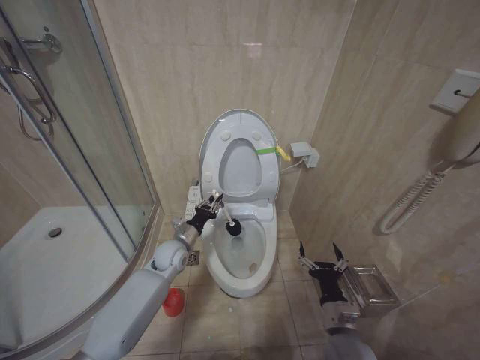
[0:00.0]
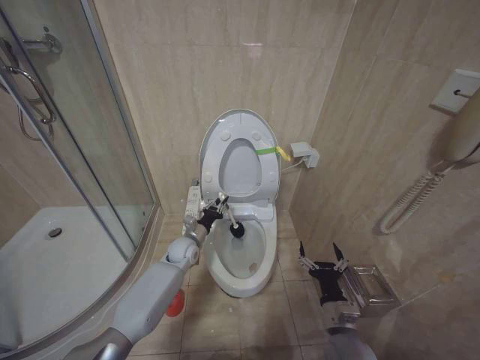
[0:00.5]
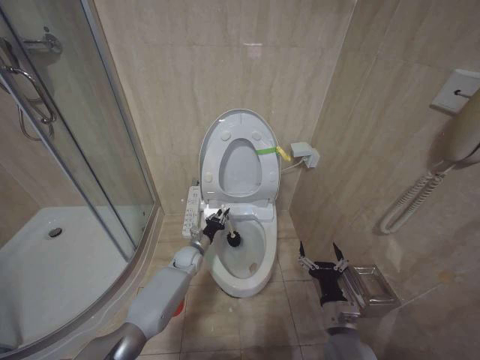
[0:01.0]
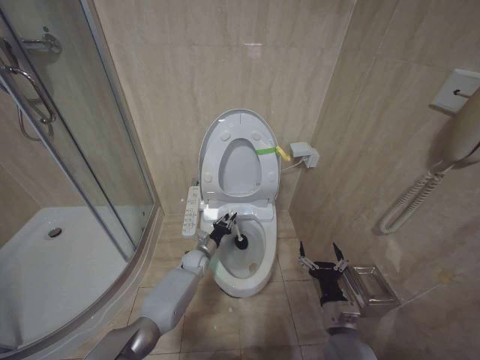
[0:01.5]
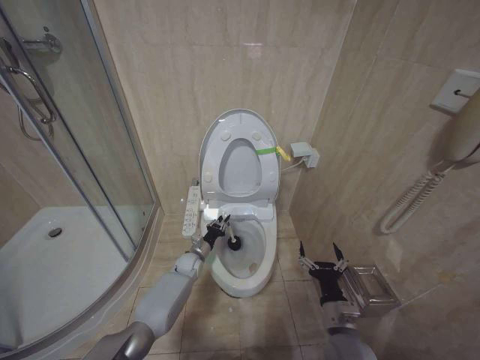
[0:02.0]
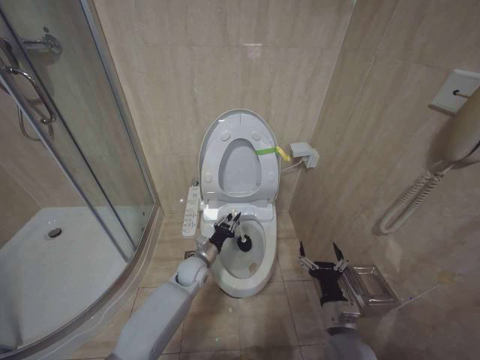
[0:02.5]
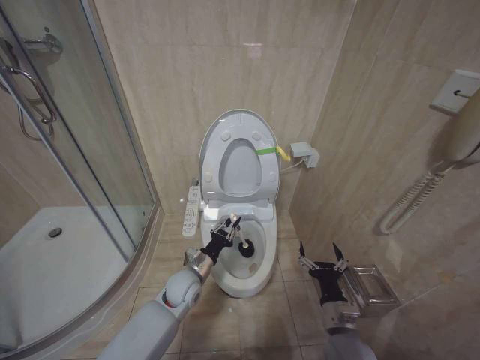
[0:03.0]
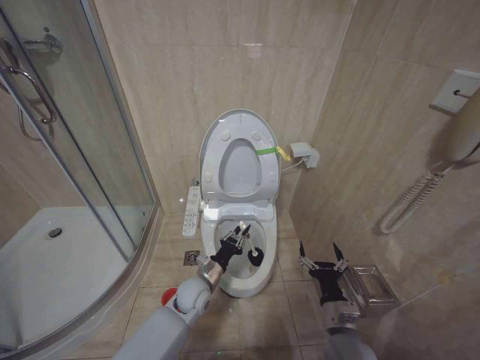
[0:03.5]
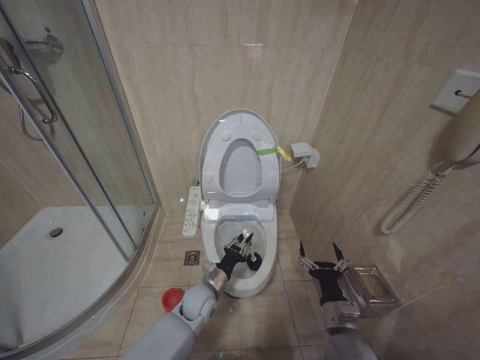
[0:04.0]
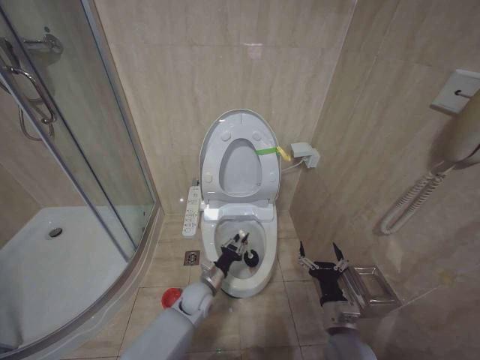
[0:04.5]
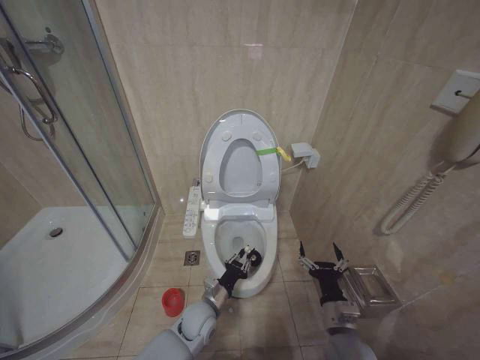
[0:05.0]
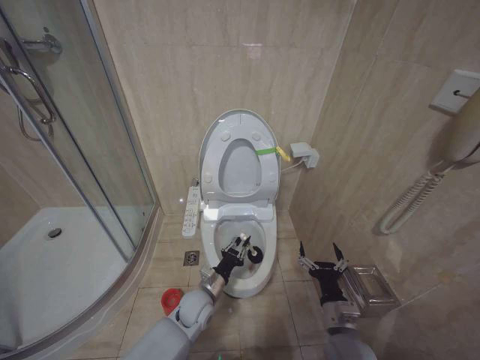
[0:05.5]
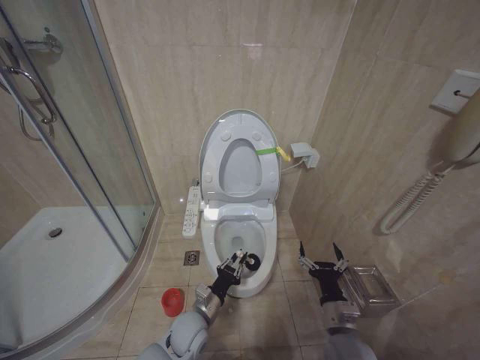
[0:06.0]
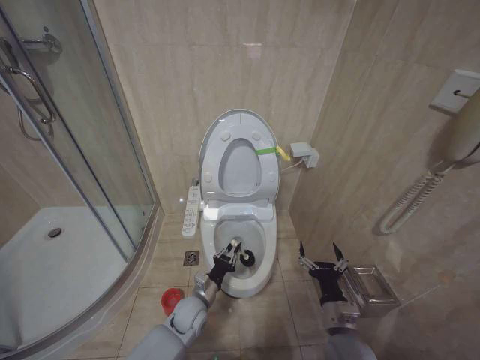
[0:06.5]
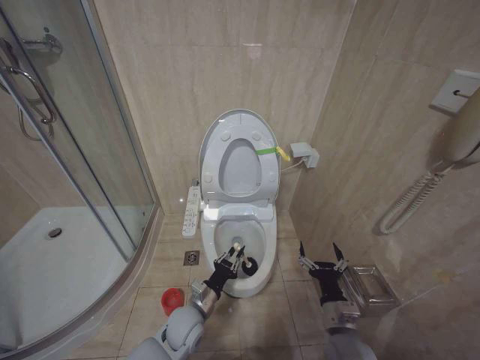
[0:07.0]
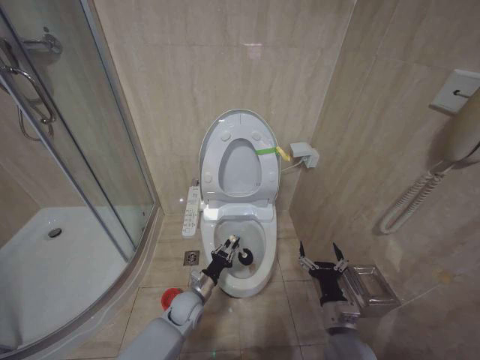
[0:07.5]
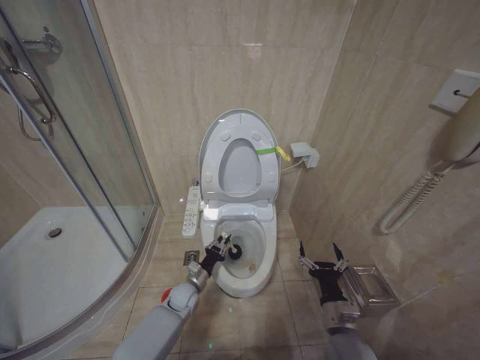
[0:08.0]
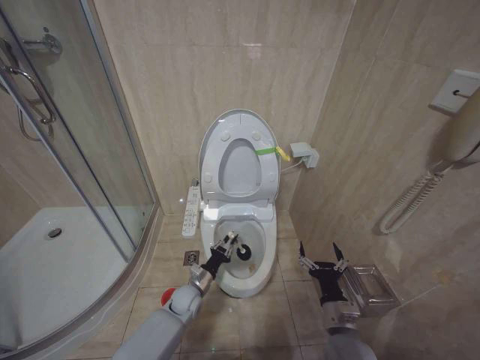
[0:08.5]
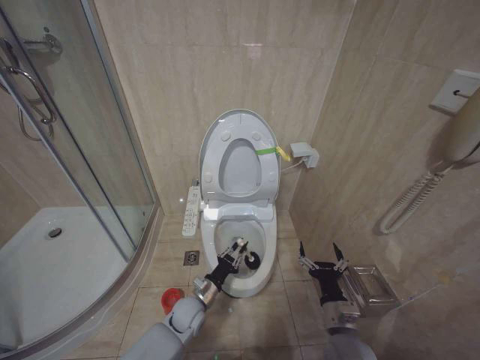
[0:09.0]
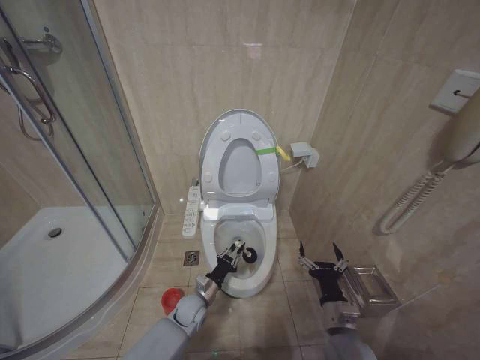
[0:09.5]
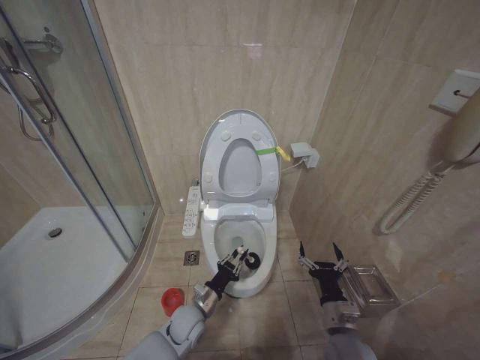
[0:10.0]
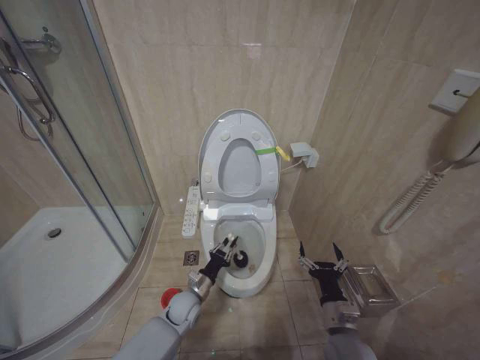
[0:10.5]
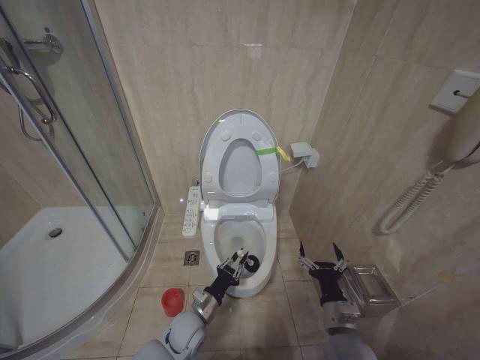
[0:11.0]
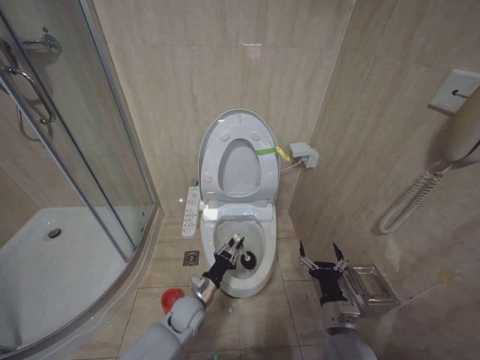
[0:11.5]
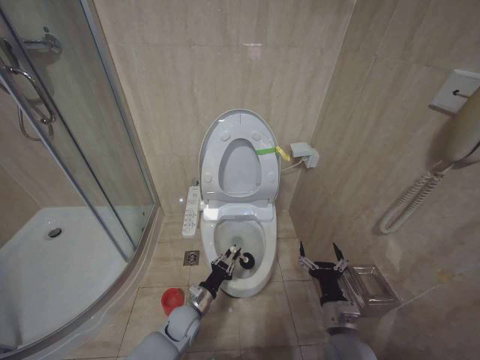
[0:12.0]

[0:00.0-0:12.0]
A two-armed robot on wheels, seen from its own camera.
Task of the whole recording: Open the toilet lid, clean the toilet bowl with a toilet brush, close the toilet lid, and flush.
0:00.0 to 0:02.0: The left gripper shifts some 15 cm downward and forward.
0:02.0 to 0:04.0: The left gripper is displaced backward by about 15 cm.
0:04.0 to 0:06.0: The left gripper goes roughly 5 cm backward.
0:06.0 to 0:08.0: The left gripper moves forward and downward, about 10 cm.
0:08.0 to 0:10.0: The left gripper moves backward, approximately 5 cm.
0:10.0 to 0:12.0: The left gripper moves forward and backward over approximately 5 cm, changing direction 2 times.

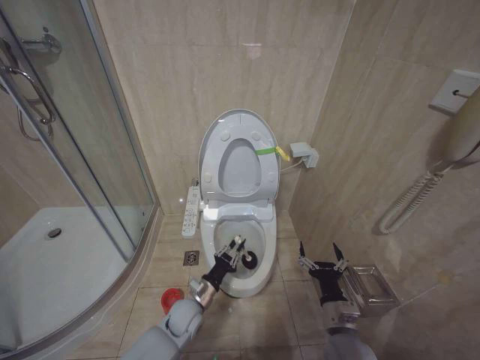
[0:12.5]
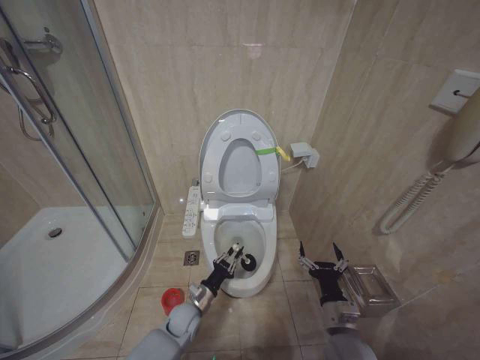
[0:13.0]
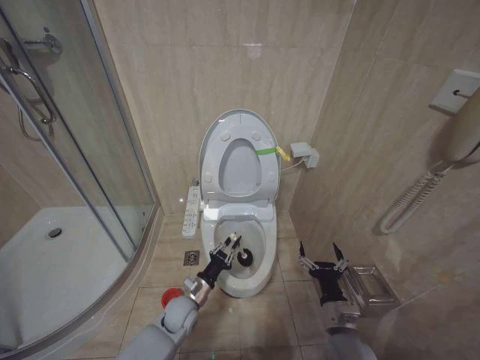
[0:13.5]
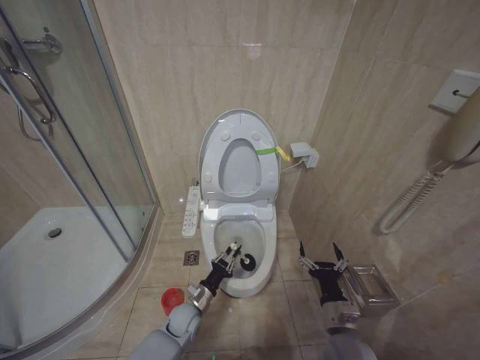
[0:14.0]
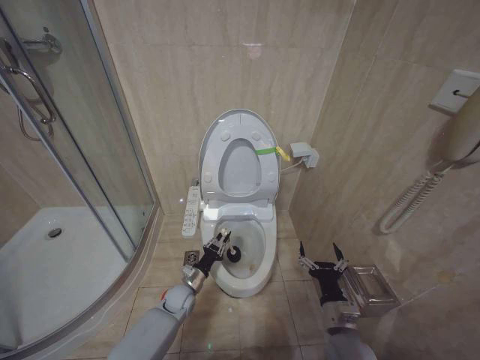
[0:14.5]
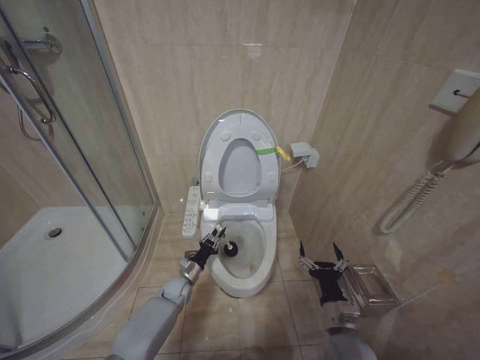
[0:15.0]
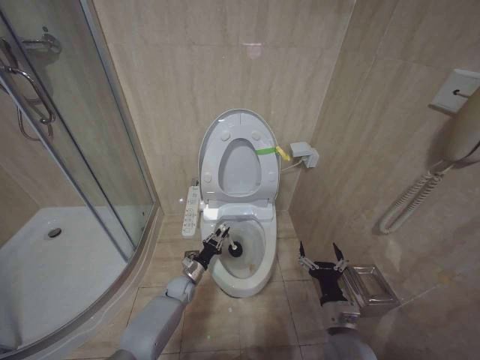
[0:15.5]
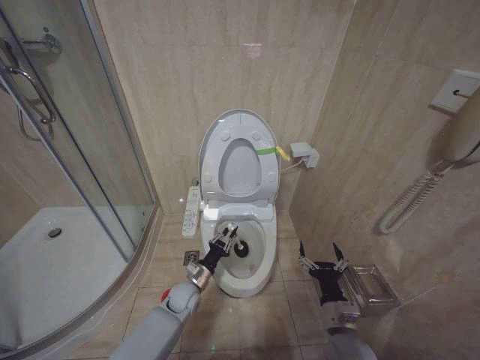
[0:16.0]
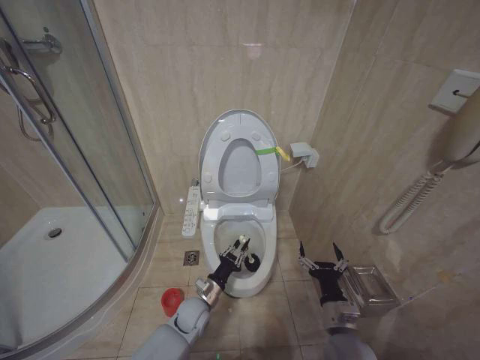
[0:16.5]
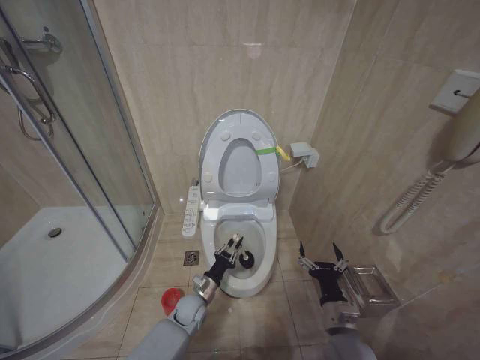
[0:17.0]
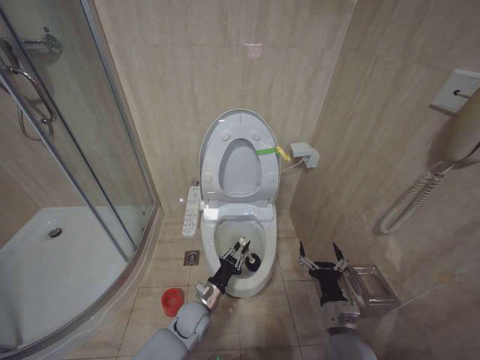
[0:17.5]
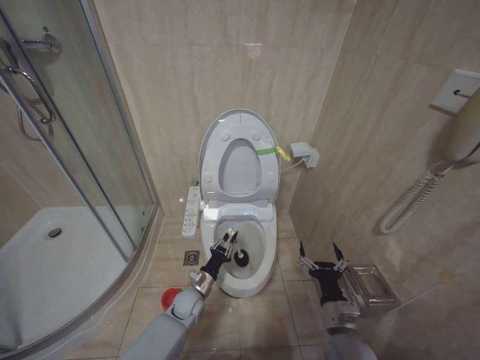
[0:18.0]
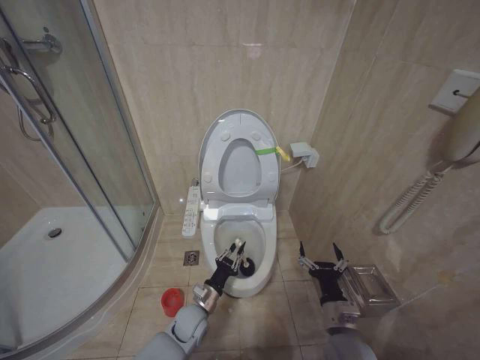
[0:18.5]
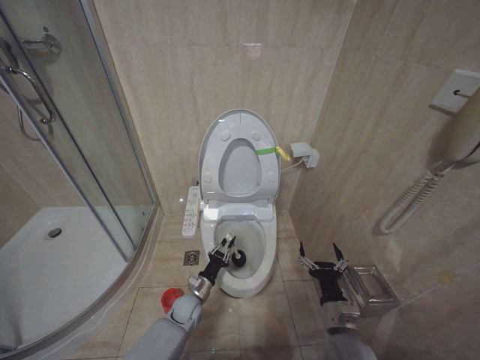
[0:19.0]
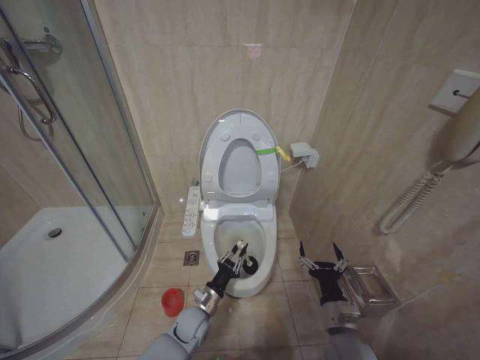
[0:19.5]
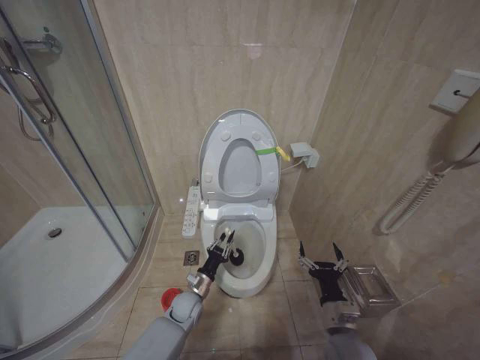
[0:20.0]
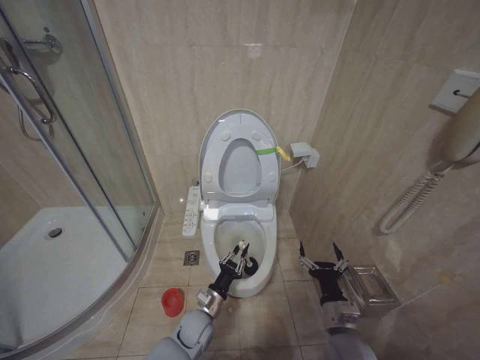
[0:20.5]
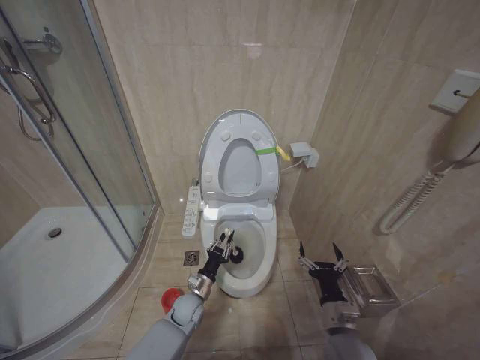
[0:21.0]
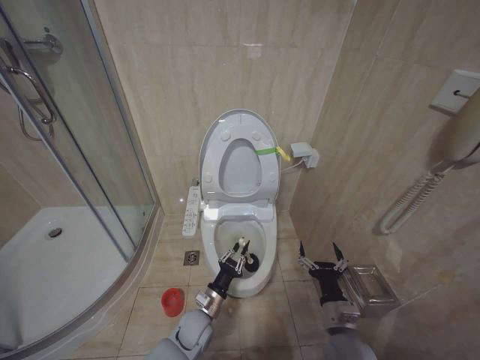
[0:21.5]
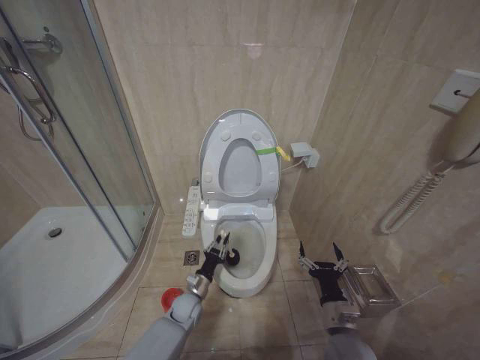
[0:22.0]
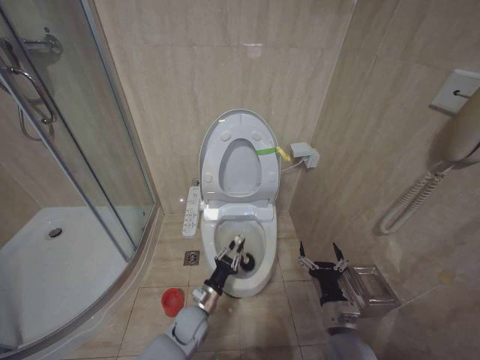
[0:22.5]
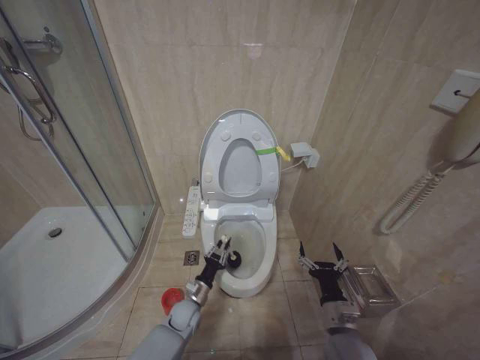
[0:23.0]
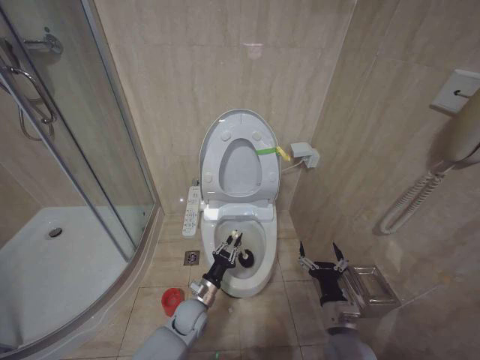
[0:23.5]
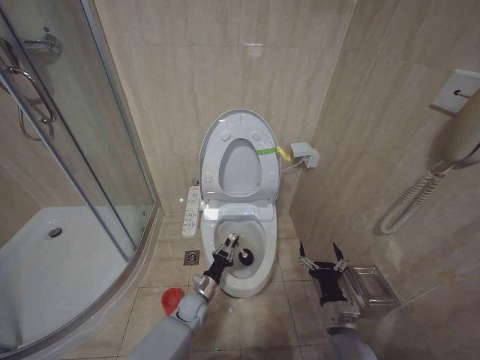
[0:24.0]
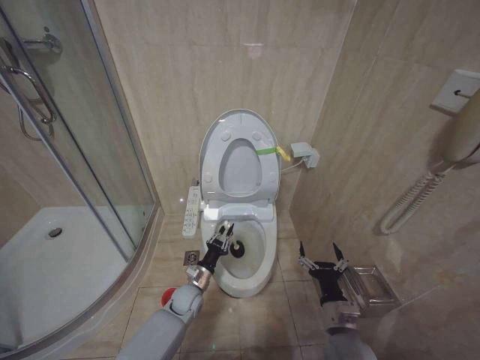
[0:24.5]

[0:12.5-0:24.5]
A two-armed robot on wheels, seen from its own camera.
Task of the whole recording: Open the toilet lid, clean the toilet bowl with a toilet brush, close the toilet lid, and flush.
0:12.5 to 0:14.5: The left gripper ends up roughly 5 cm from where it was.
0:14.5 to 0:16.5: The left gripper shifts by approximately 5 cm.
0:16.5 to 0:18.5: The grippers make only small movements.
0:18.5 to 0:20.5: The left gripper goes forward and backward, roughly 5 cm each way, reversing 3 times.
0:22.5 to 0:24.5: The left gripper ends up about 5 cm from where it was.

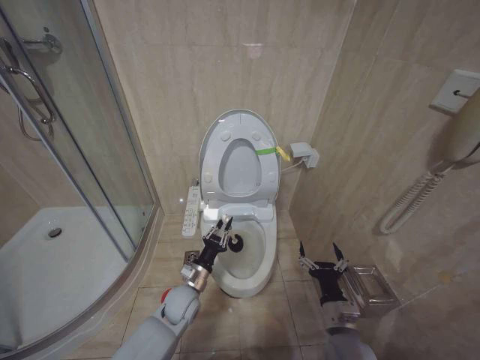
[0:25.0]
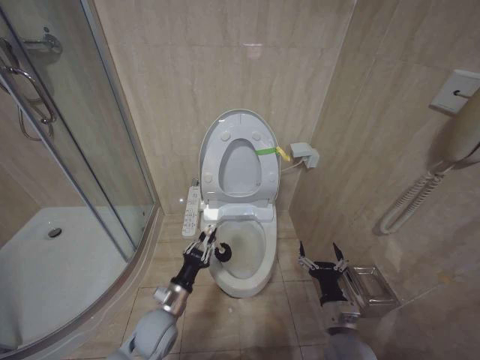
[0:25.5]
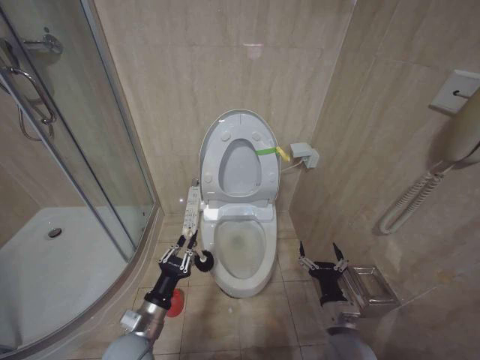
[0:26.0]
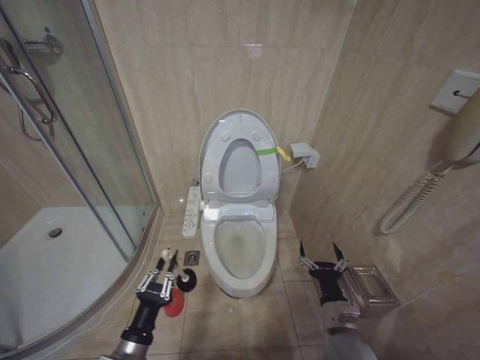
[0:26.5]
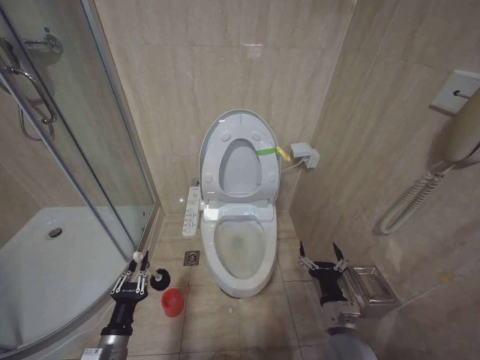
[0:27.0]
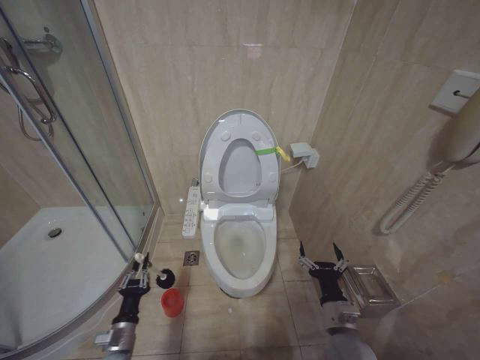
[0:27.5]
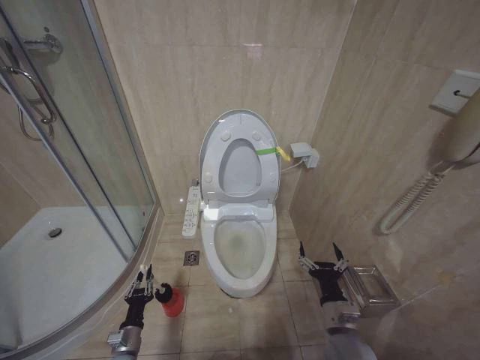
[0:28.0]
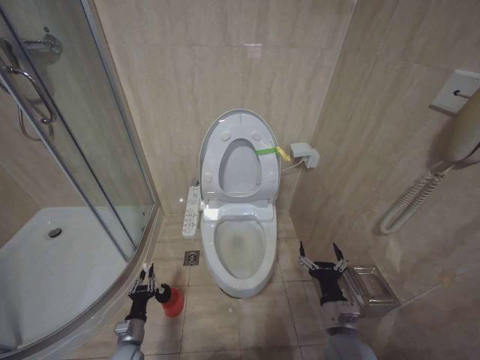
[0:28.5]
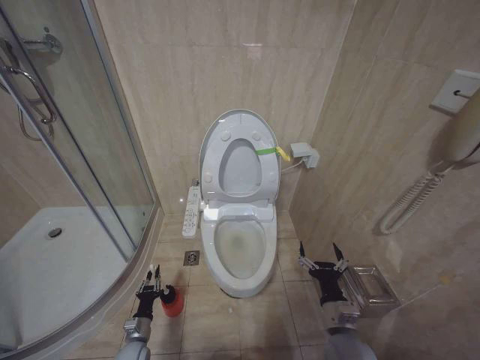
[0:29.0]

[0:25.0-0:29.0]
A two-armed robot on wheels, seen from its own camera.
Task of the whole recording: Open the toilet lid, clean the toilet bowl with a toilet brush, close the toilet lid, and flush.
0:25.0 to 0:27.0: The left gripper moves backward and to the left, roughly 25 cm.
0:27.0 to 0:29.0: The left gripper goes some 25 cm downward and forward.
